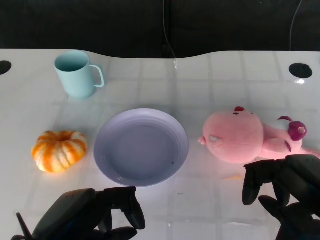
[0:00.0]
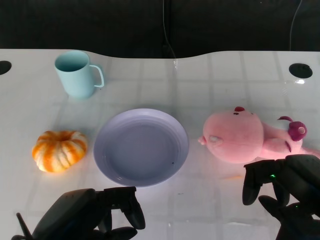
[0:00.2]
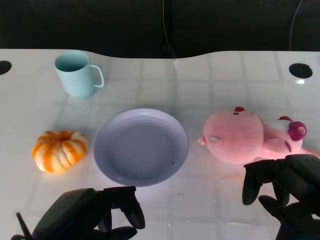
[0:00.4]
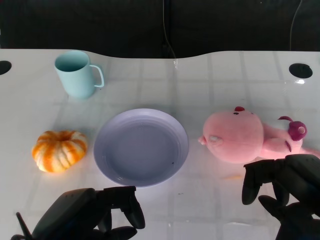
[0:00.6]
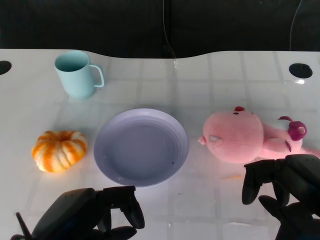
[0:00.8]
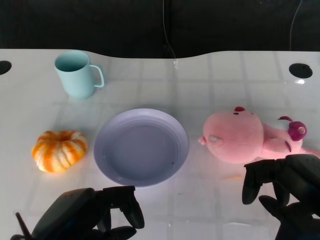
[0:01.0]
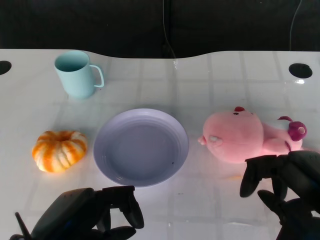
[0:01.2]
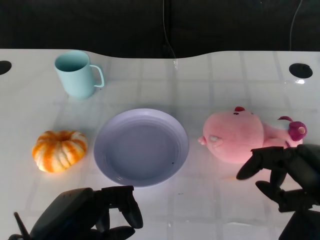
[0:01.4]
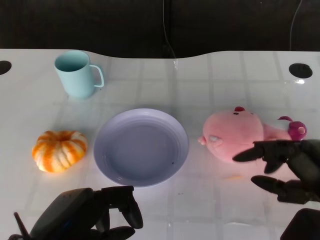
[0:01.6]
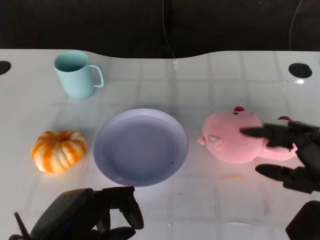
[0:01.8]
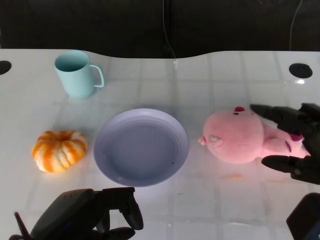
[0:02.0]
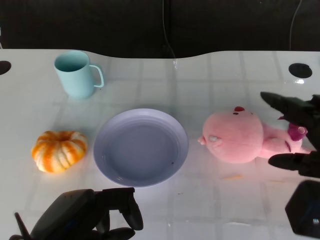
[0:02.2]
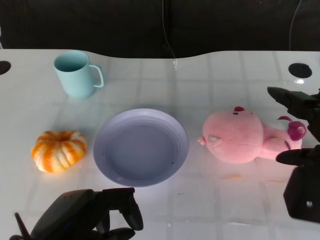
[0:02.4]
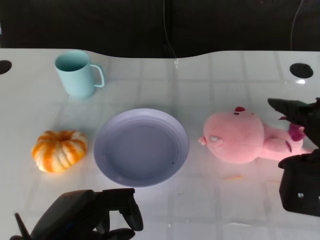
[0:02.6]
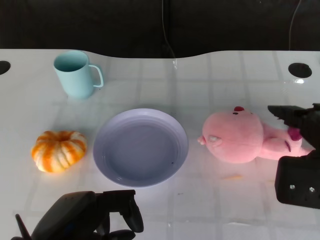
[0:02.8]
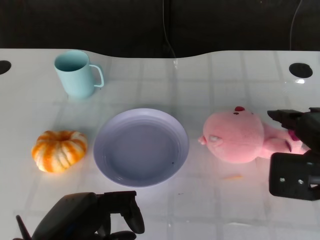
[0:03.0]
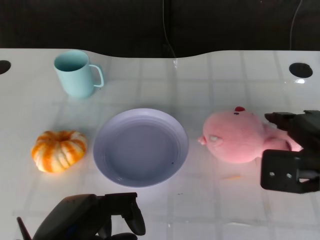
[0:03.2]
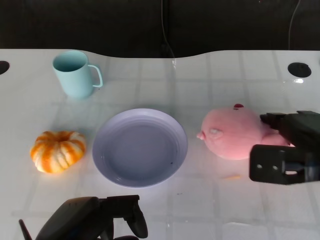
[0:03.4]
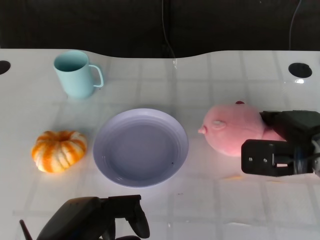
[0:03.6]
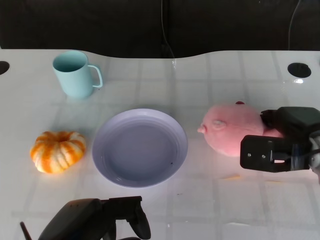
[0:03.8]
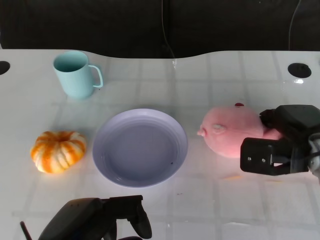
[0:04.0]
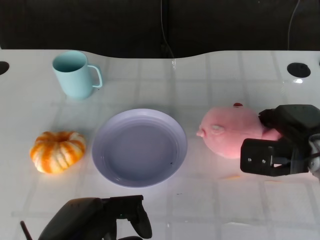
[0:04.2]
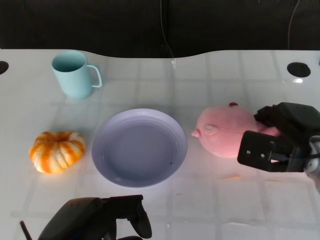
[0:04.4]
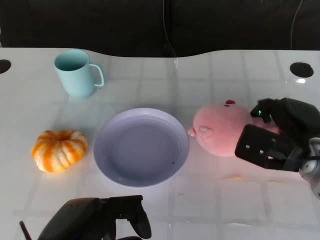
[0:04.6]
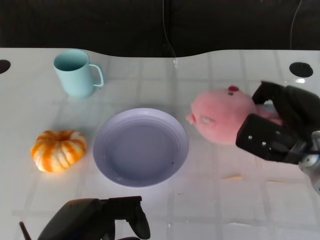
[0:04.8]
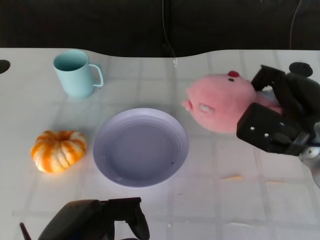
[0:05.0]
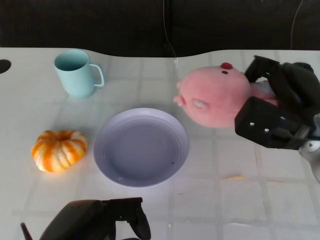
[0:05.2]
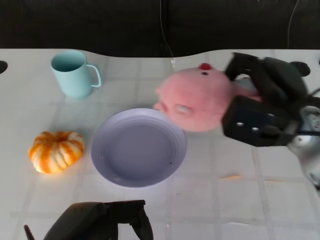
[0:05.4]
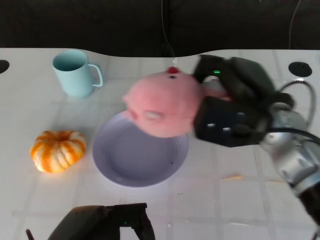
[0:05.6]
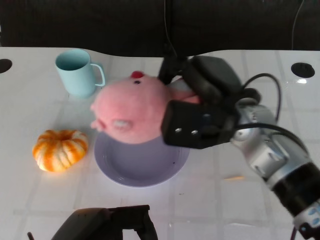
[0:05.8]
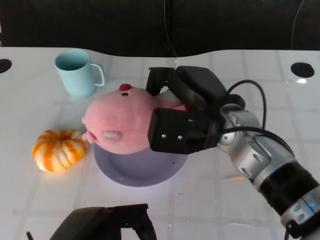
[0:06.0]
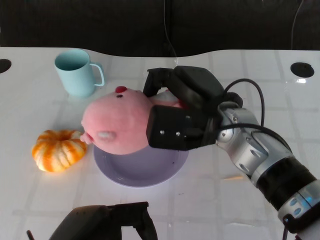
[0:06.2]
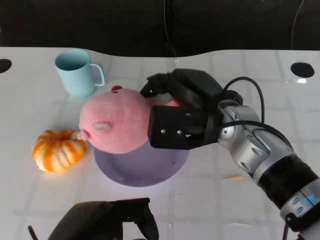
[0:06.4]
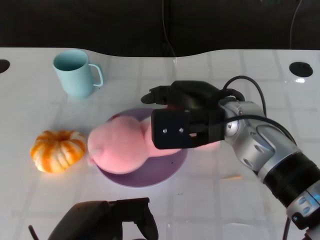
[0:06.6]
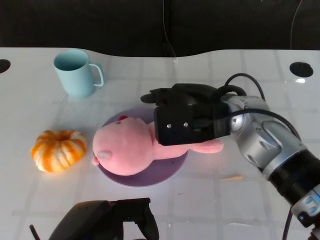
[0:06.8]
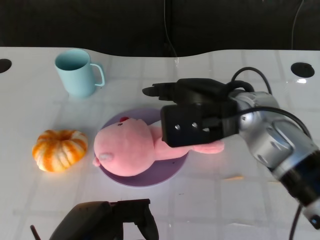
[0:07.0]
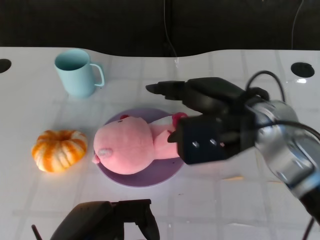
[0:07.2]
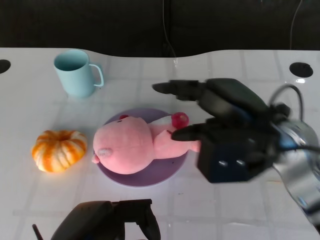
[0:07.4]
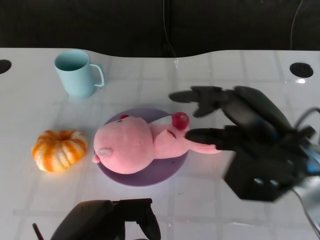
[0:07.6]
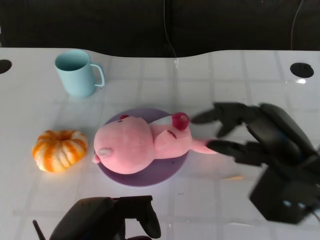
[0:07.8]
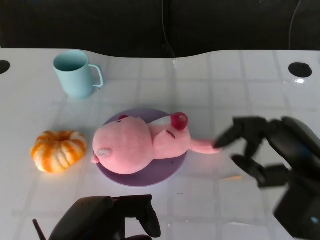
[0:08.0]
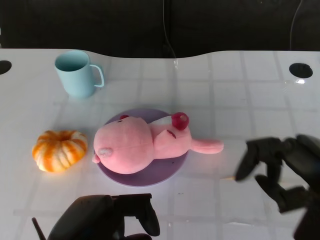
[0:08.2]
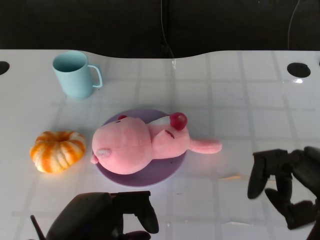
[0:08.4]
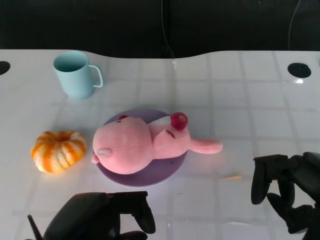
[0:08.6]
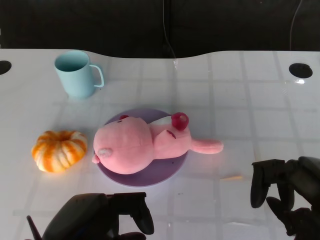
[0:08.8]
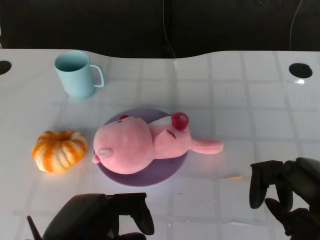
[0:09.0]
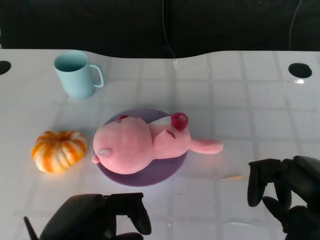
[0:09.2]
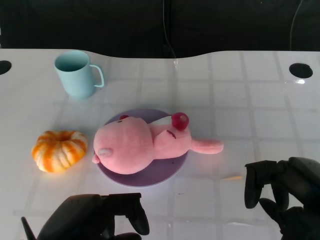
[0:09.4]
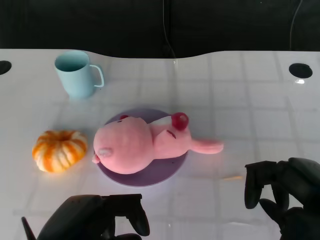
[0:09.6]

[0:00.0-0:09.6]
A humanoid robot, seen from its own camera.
Task of the whole recording: Pick up the doll on the other side of the plate and place it into the plate.
Step, 1.2 to 4.6 s: Grasp the pink doll with the right gripper.
Step, 5.0 to 7.0 s: Place the pink doll into the plate with the right gripper.
1.6 to 3.2 s: The right hand travels forward by roughly 10 cm.
3.2 to 4.8 s: The right hand changes place by some 5 cm.
4.8 to 6.4 s: The right hand is displaced to the left and upward by approximately 15 cm.
6.4 to 8.0 s: The right hand heads to the right and backward, covering about 15 cm.
8.0 to 9.6 s: The hands make only small movements.

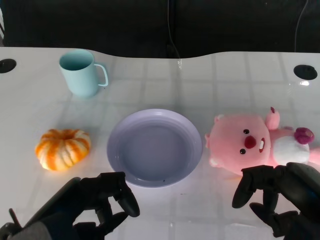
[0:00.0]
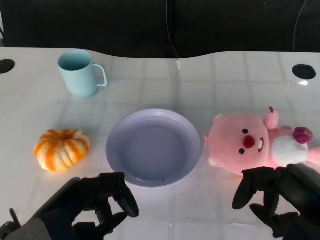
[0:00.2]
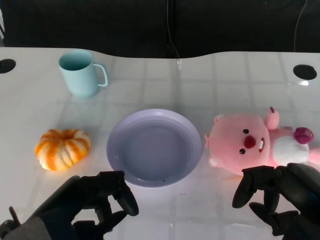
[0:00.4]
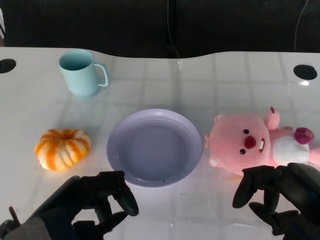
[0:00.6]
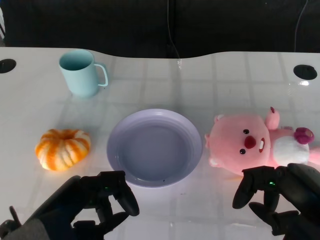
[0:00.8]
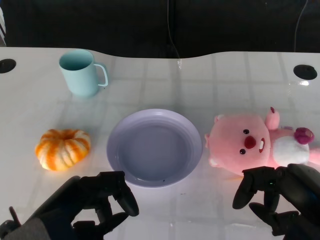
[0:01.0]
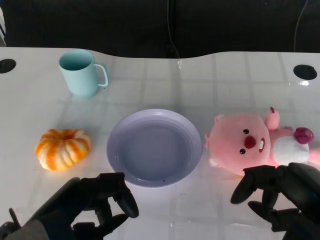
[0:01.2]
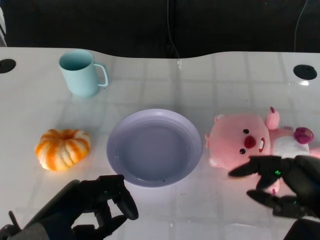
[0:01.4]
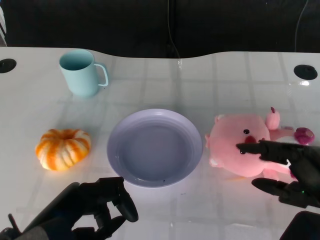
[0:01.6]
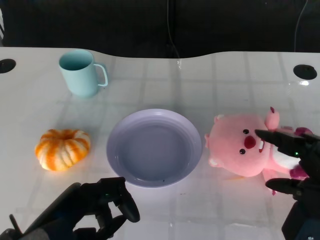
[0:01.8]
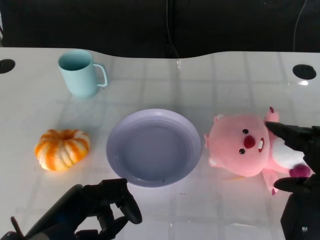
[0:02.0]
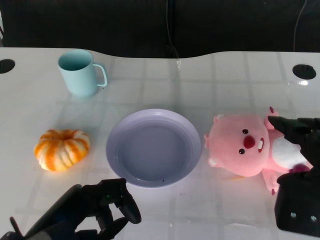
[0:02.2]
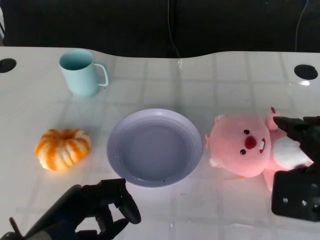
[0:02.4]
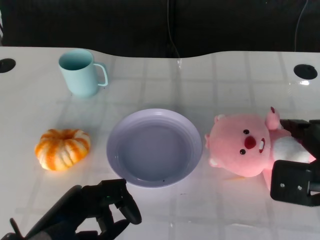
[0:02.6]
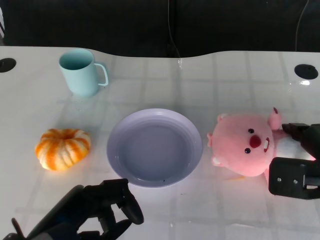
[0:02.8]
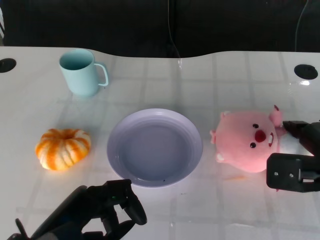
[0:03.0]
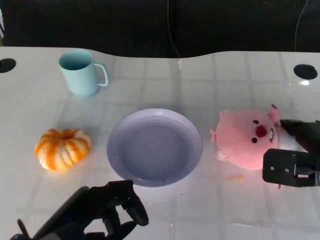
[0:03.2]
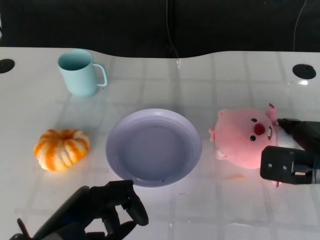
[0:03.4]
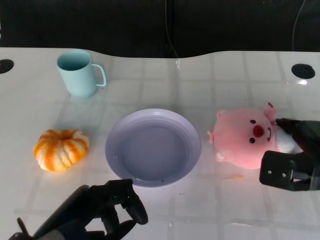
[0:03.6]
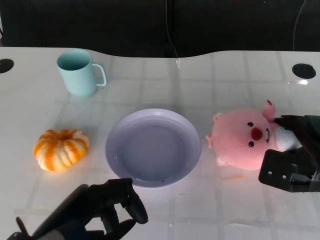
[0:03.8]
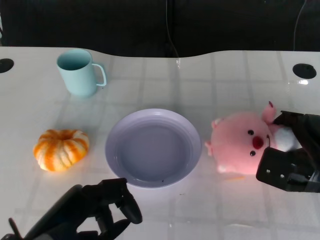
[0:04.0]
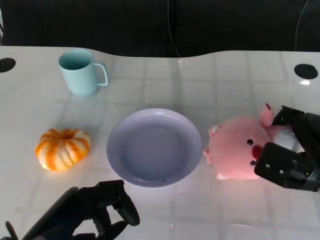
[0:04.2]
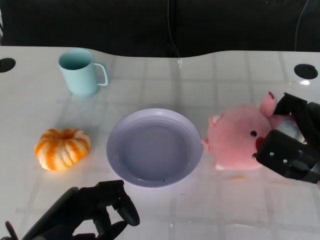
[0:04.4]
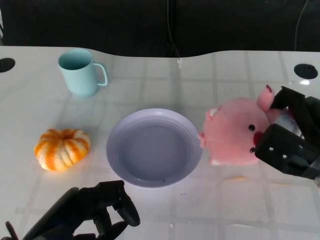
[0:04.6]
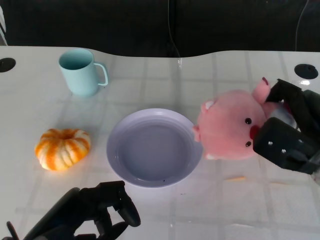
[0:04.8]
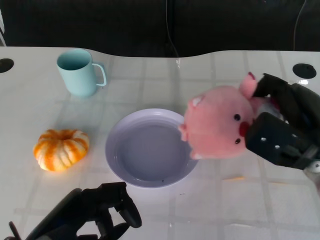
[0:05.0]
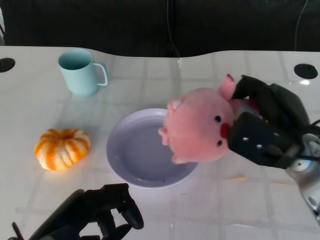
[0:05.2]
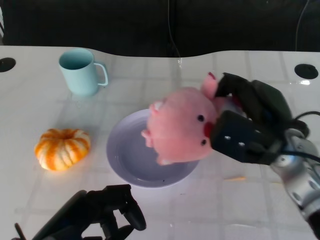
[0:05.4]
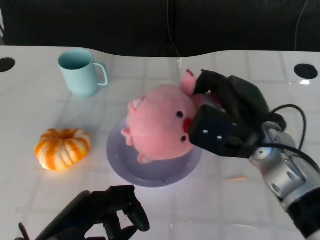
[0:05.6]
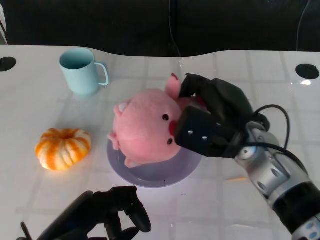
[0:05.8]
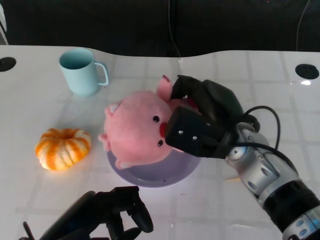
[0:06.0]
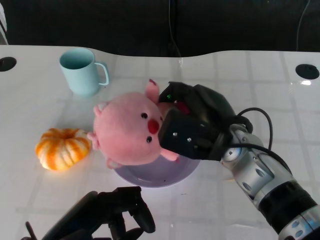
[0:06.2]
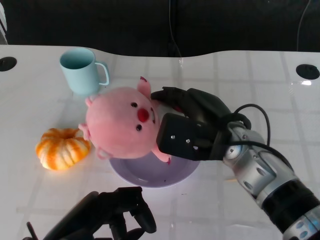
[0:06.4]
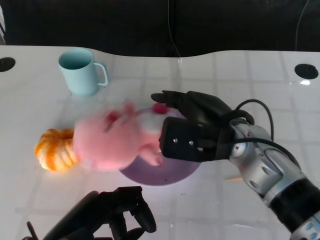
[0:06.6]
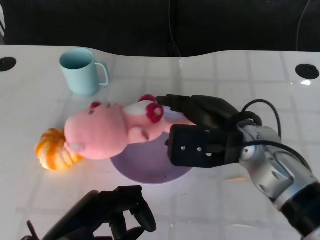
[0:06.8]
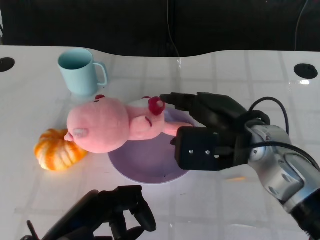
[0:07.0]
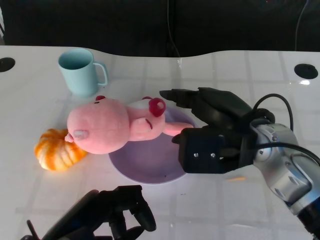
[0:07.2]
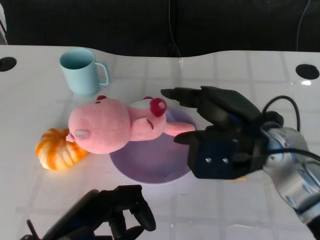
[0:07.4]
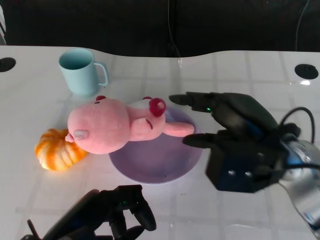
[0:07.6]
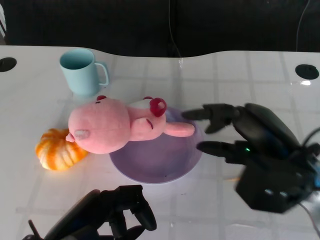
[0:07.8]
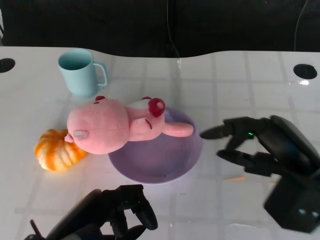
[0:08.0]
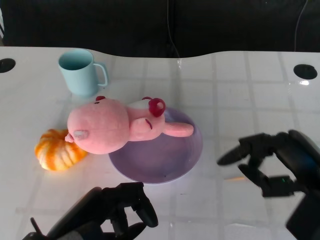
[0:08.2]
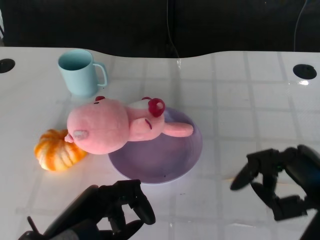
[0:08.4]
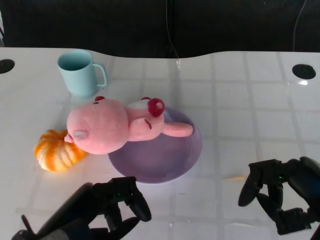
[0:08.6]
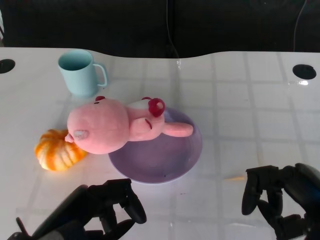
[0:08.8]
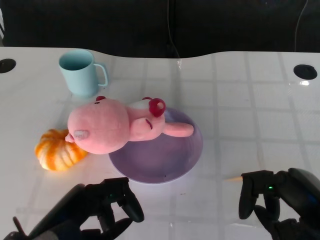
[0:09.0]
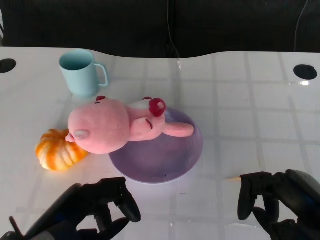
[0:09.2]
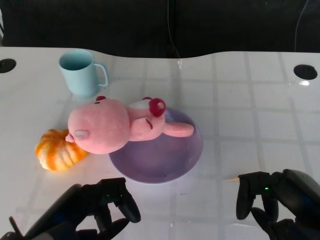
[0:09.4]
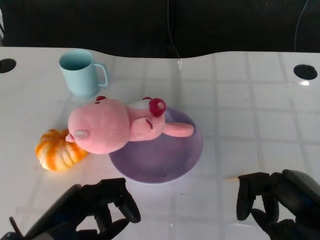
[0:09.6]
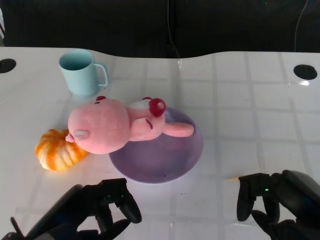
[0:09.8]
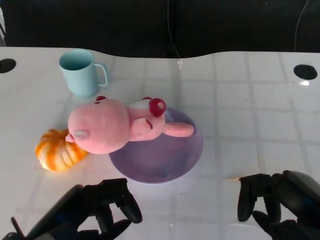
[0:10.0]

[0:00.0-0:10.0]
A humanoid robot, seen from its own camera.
Task of the whole recording: Pick up the doll on the other side of the plate and place it into the plate.
Step, 1.2 to 5.4 s: Grasp the pink doll with the right gripper.
Step, 5.6 to 7.8 s: Place the pink doll into the plate with the right gripper.
1.4 to 2.8 s: The right hand is displaced forward by about 10 cm.
2.8 to 4.2 s: The right hand shifts by roughly 5 cm.
4.2 to 5.8 s: The right hand is displaced to the left and upward by about 15 cm.
7.2 to 8.6 s: The right hand moves backward and to the right, about 15 cm.
8.6 to 10.0 s: There are only small adjustments of the hands.

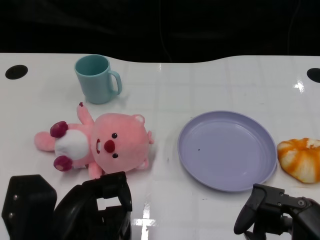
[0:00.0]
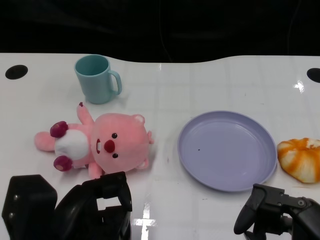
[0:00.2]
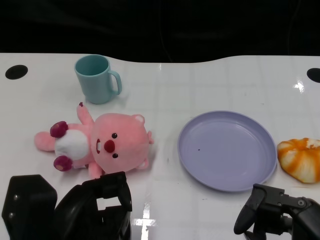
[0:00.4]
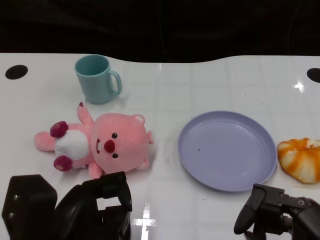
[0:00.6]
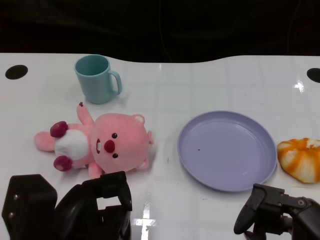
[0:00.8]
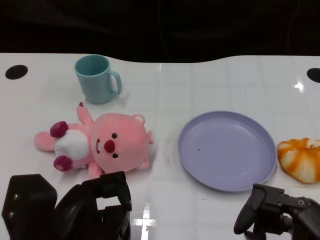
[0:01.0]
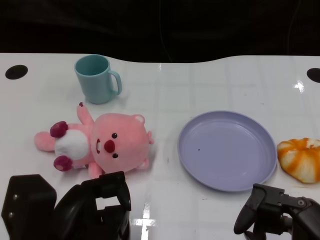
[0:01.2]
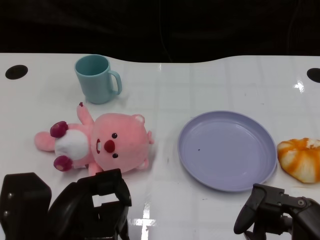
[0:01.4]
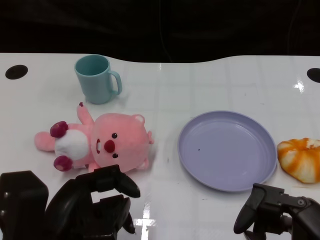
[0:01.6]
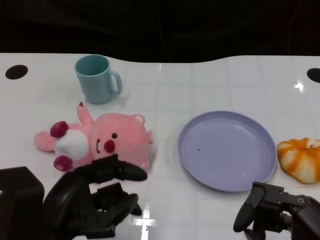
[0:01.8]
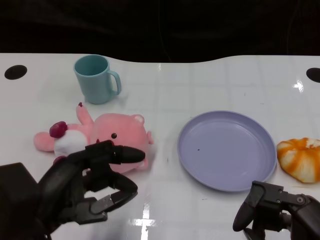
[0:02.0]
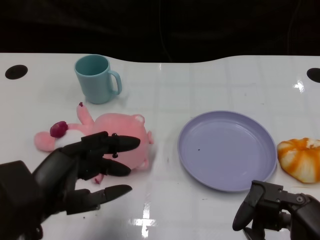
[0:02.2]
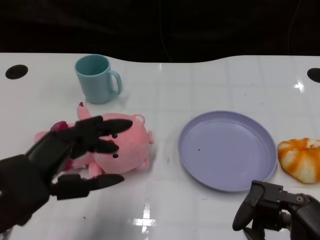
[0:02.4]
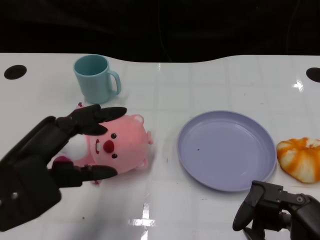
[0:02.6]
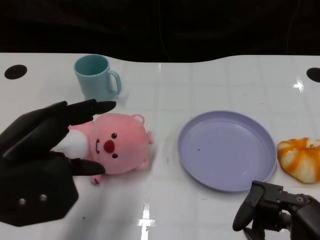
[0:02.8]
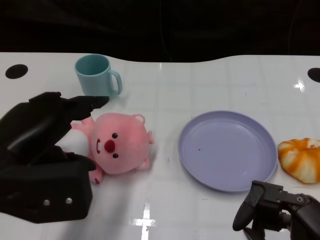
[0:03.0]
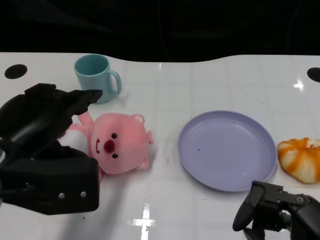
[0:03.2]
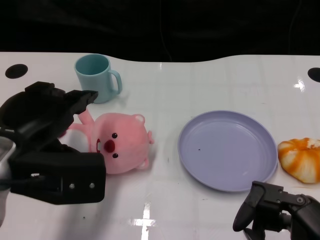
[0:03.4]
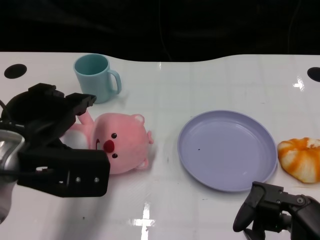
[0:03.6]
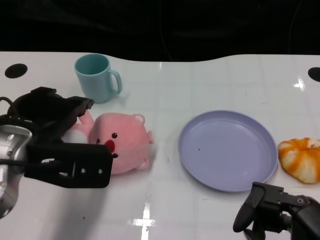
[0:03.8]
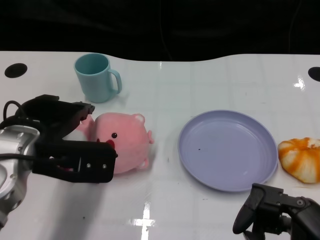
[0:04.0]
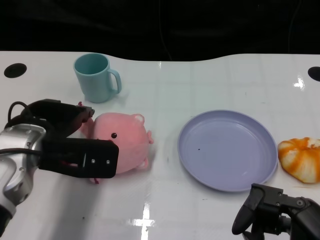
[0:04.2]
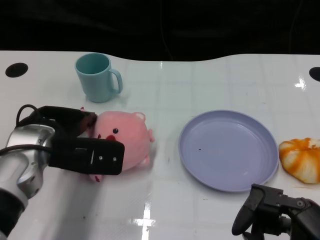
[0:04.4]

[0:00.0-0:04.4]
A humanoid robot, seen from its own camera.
Task of the whole recording: Pick up the doll on one side of the plate and place it into the plate.
1.4 to 3.0 s: The left hand goes roughly 10 cm upward and forward.
3.0 to 4.4 s: The left hand is displaced forward and downward by some 10 cm.
